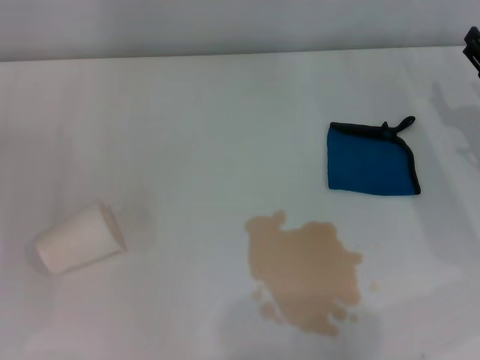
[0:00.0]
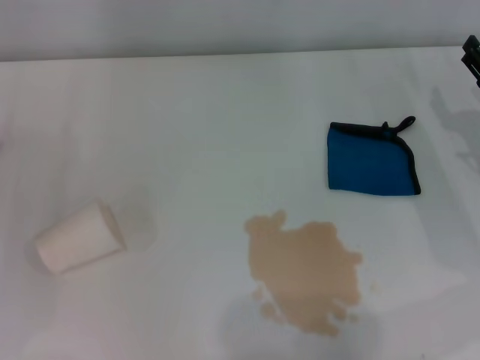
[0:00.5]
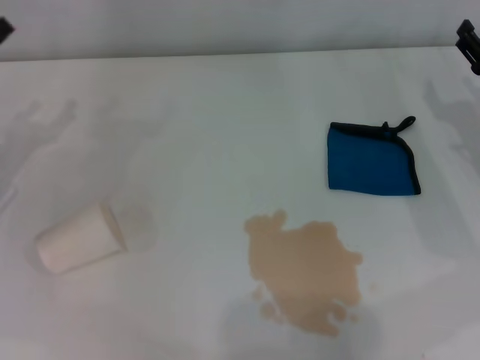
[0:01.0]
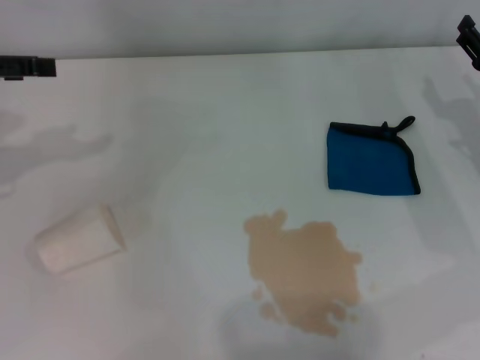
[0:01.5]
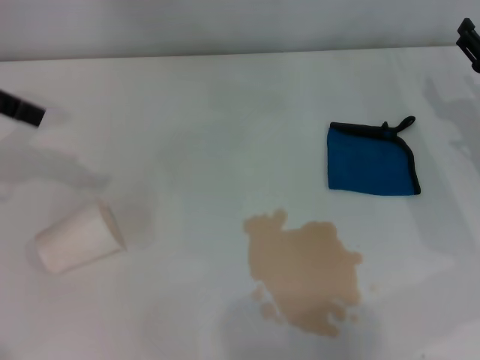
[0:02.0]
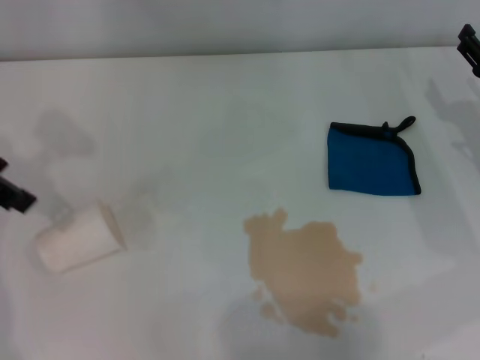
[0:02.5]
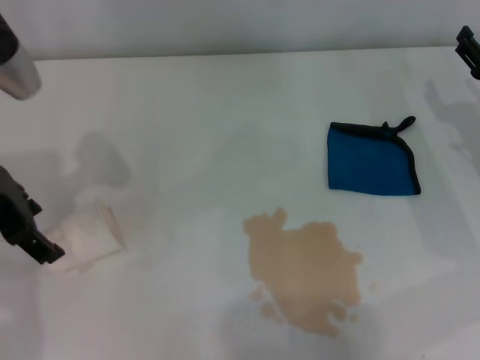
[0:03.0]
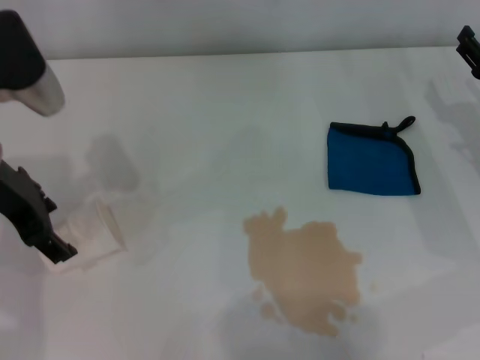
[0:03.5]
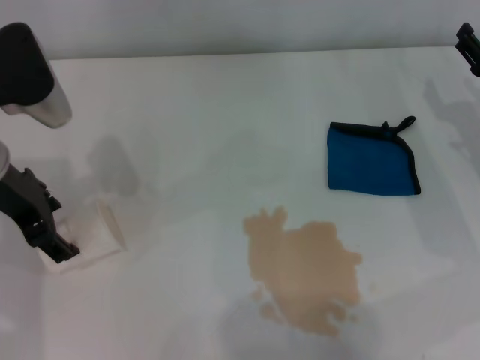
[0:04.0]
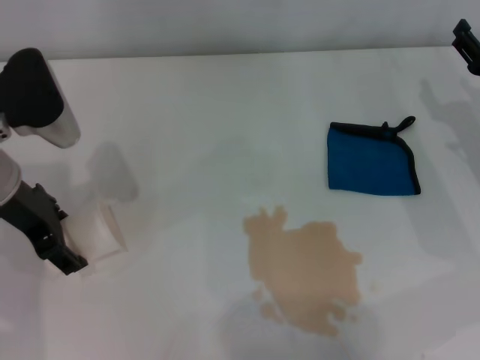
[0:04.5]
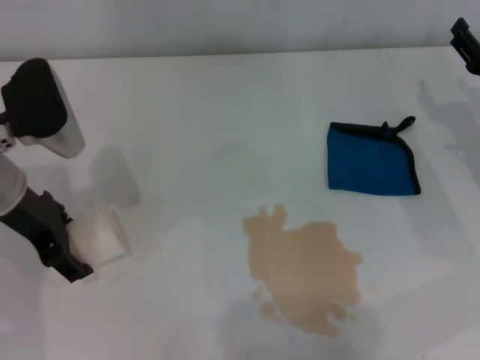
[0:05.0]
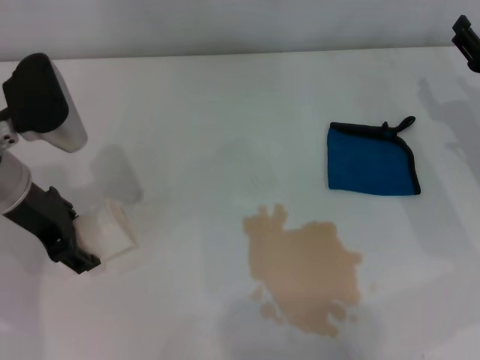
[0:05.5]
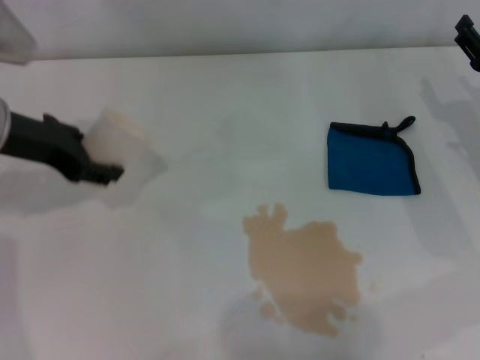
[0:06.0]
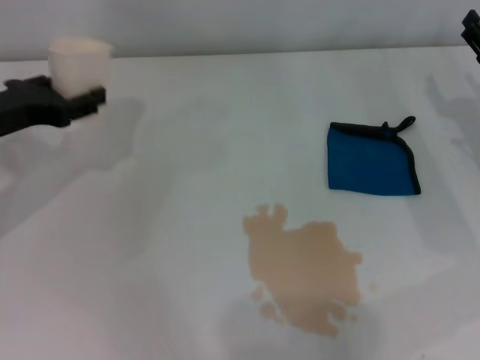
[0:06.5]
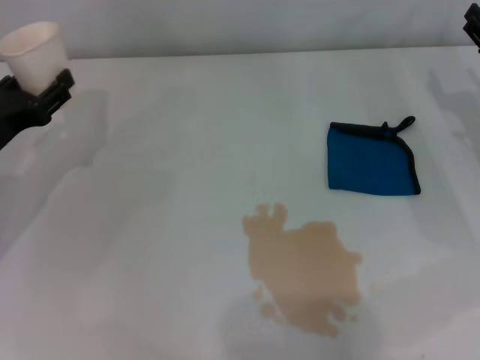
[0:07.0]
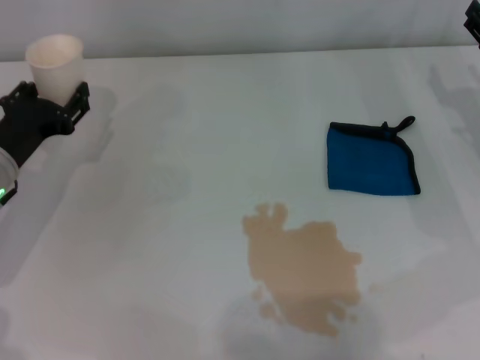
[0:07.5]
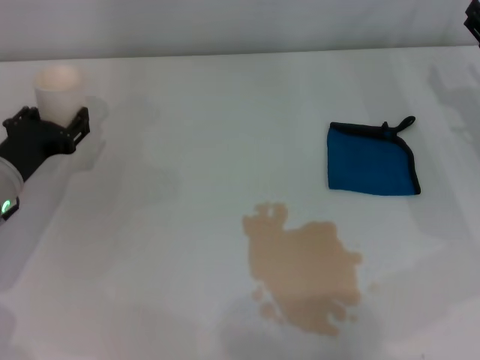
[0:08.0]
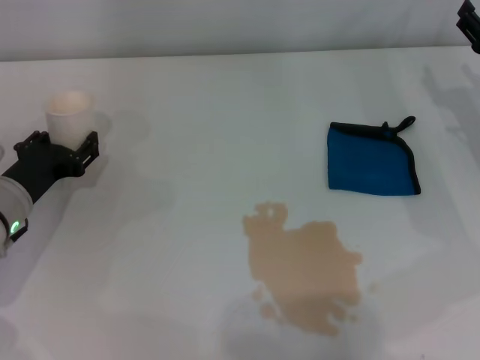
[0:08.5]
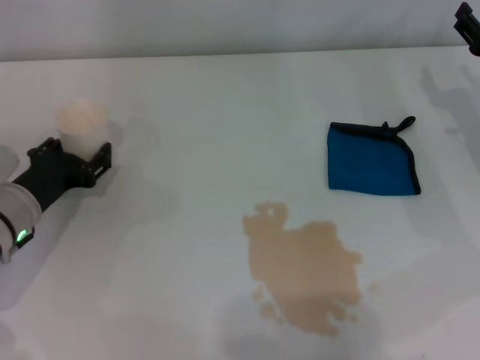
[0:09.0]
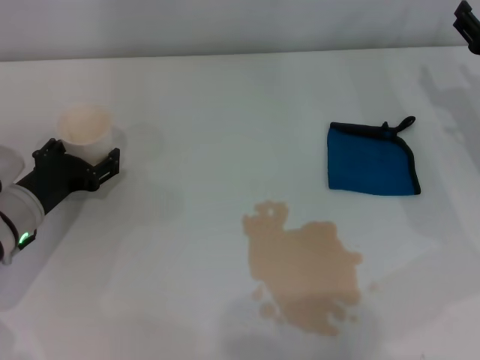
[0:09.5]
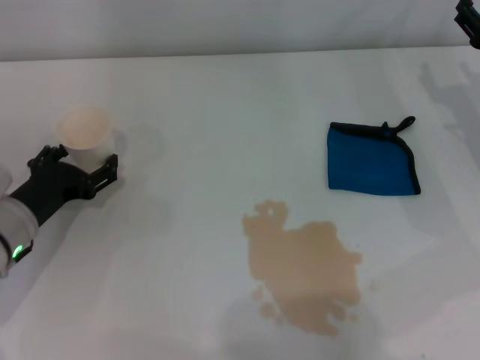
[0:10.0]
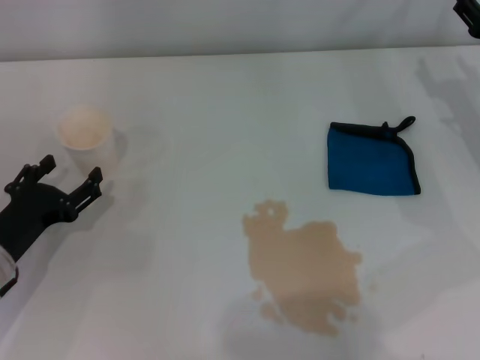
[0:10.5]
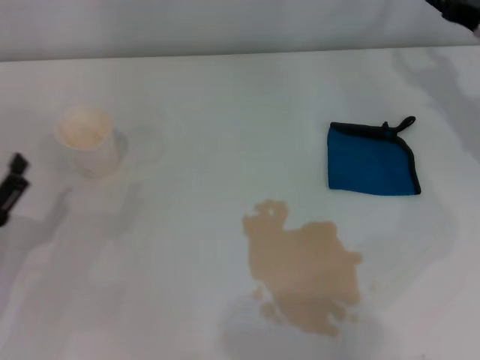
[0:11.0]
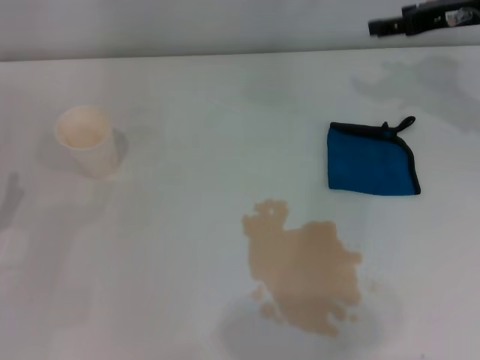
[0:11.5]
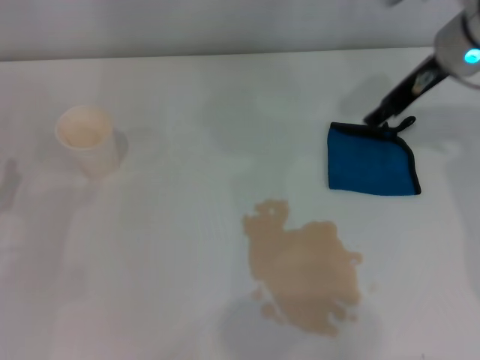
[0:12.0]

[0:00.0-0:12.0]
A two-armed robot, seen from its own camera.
Step, 0:00.0 to 0:05.0: Grasp the paper cup with the left gripper.
Step, 0:05.5 to 0:09.5: Stand the paper cup upright with the left gripper.
0:00.0 to 0:02.0: The left gripper travels upward by roughly 25 cm.
0:02.0 to 0:04.0: The left gripper shifts some 15 cm downward and to the right.
0:04.0 to 0:06.0: The left gripper closes.
0:06.0 to 0:08.0: The left gripper travels downward by about 15 cm.
0:08.0 to 0:10.0: The left gripper opens its fingers.
0:10.0 to 0:12.0: The left gripper heads to the left and backward, covering roughly 10 cm. The right gripper is displaced upward, to the left and forward by approximately 15 cm.

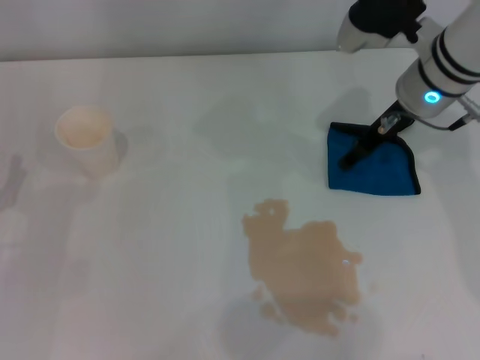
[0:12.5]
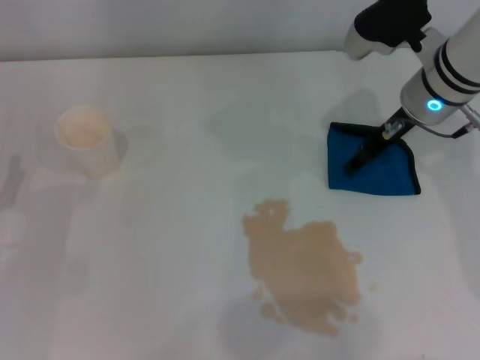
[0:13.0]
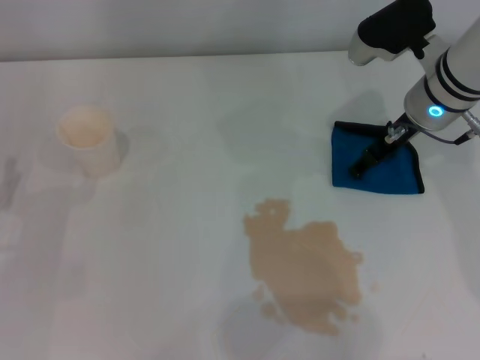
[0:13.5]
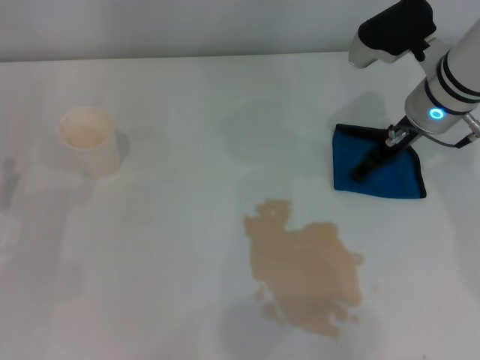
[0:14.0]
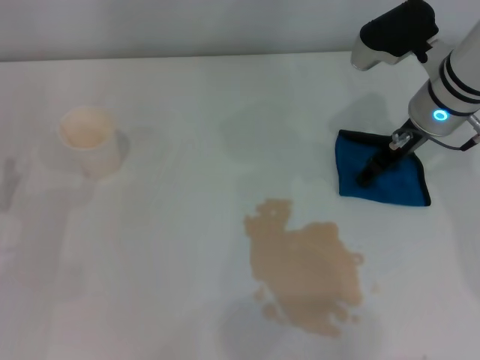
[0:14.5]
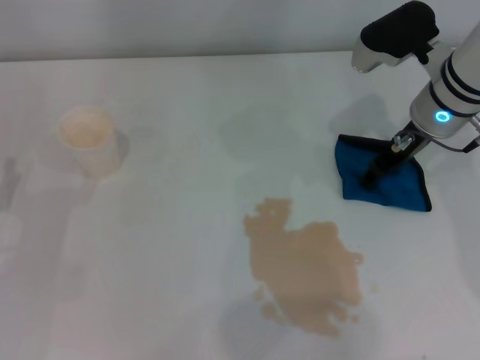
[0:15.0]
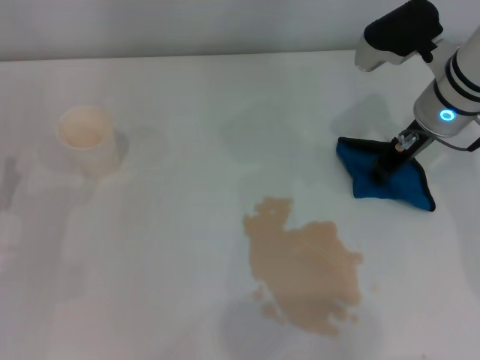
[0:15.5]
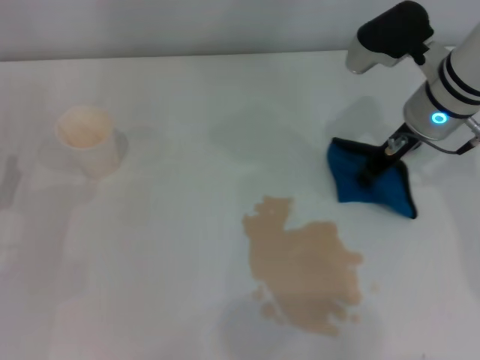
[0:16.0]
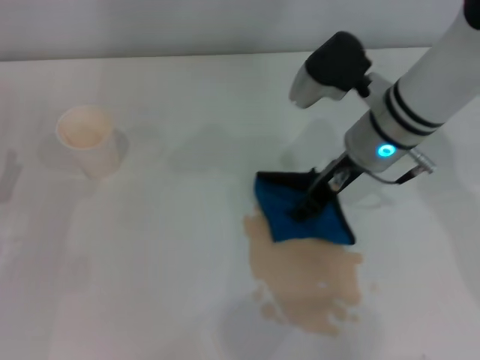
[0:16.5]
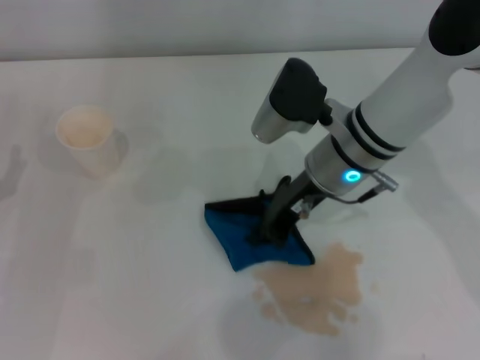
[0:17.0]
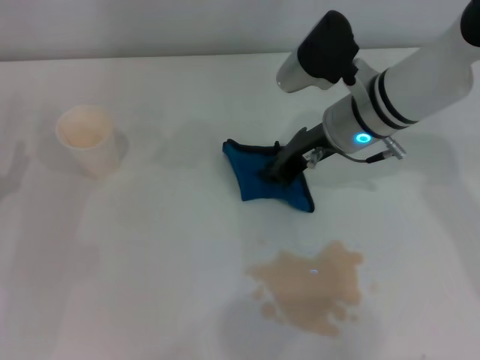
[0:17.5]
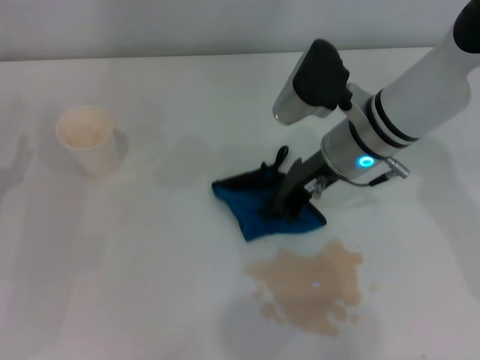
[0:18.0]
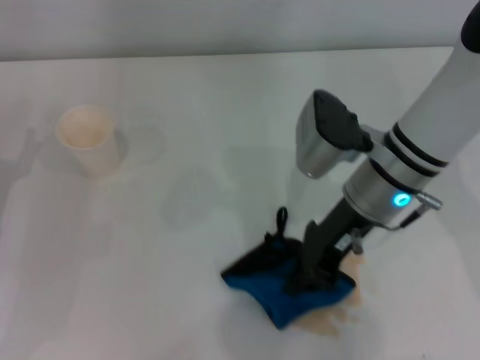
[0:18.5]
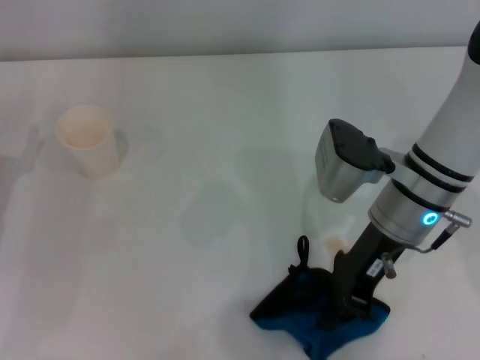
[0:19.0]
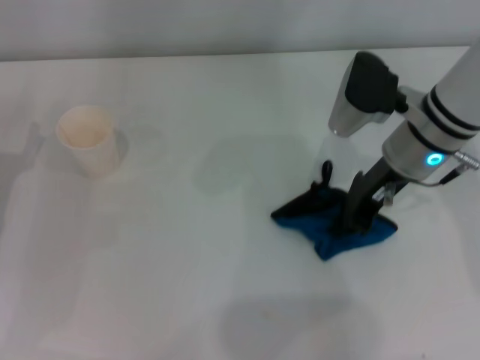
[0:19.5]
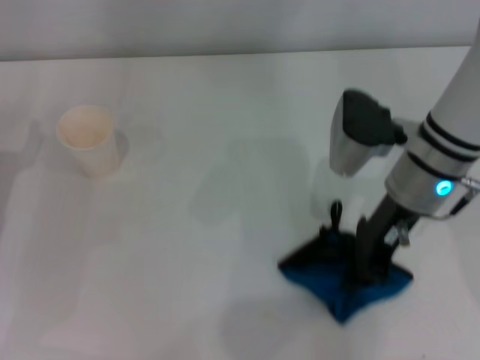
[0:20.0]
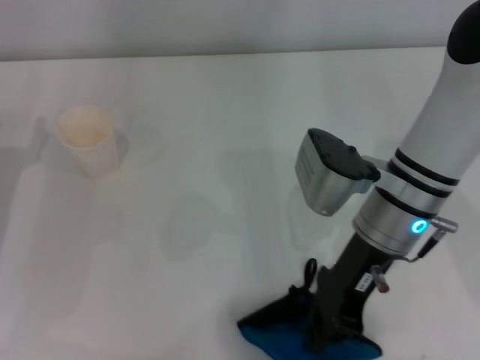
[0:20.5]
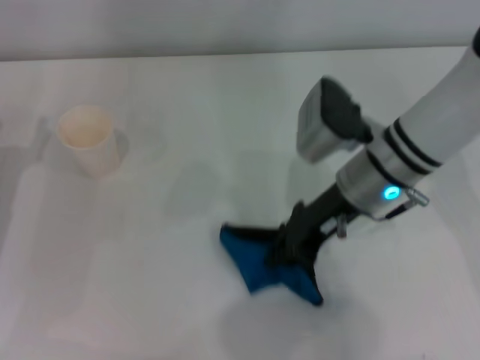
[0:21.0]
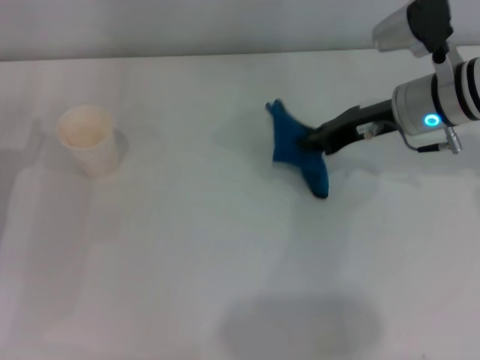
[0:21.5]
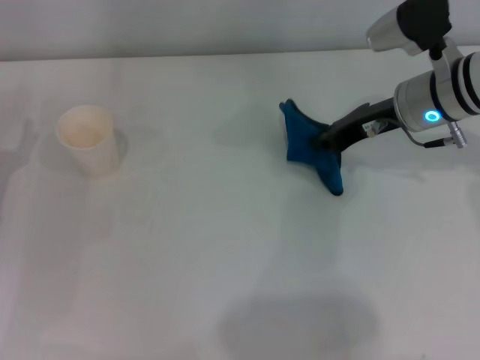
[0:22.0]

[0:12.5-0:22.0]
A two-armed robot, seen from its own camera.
Step, 0:12.5 to 0:15.5: Grasp the rag with the right gripper.
Step, 0:16.0 to 0:21.5: Wipe the stains off the table with the right gripper.
0:12.5 to 0:14.5: There are only small adjustments of the grippers.
0:14.5 to 0:16.5: The right gripper shifts approximately 5 cm to the left, and closes up.
0:16.5 to 0:18.0: There are only small adjustments of the grippers.
0:18.0 to 0:20.0: The right gripper shifts by roughly 5 cm.
0:20.0 to 0:22.0: The right gripper is displaced forward by some 5 cm.

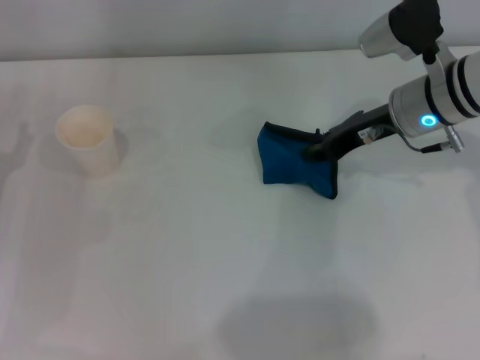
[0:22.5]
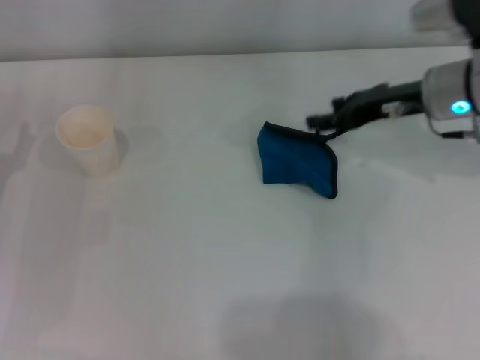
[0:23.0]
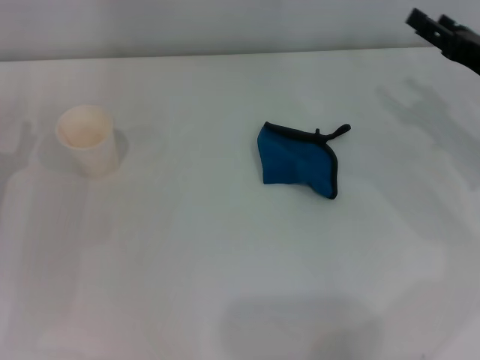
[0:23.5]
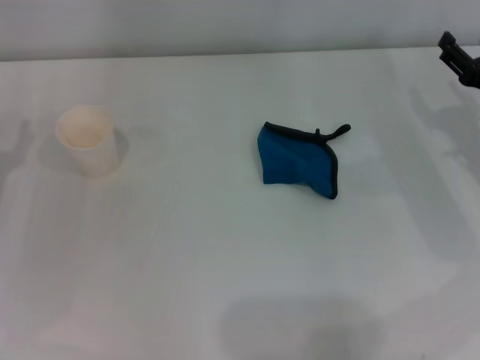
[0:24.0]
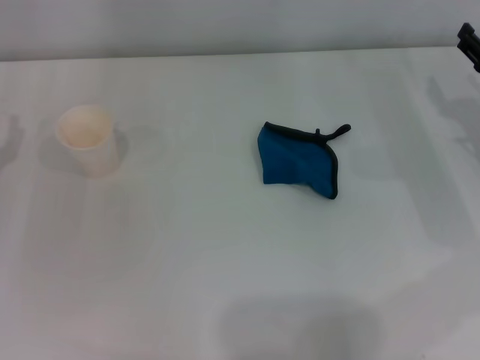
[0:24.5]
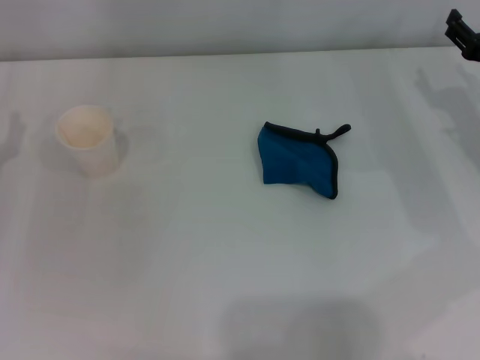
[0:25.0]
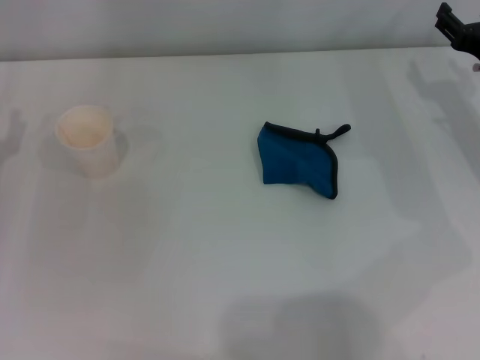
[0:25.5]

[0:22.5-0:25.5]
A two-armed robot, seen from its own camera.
0:22.5 to 0:24.0: The right gripper is displaced to the right, backward and downward by about 15 cm, and opens.
0:24.0 to 0:25.5: The right gripper shifts by roughly 5 cm.
